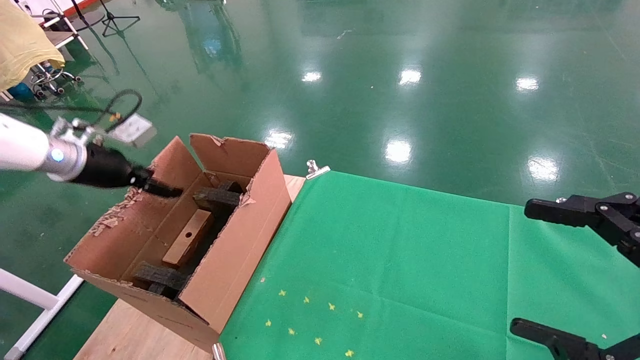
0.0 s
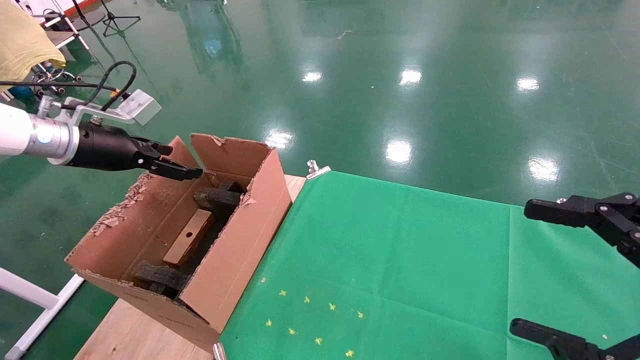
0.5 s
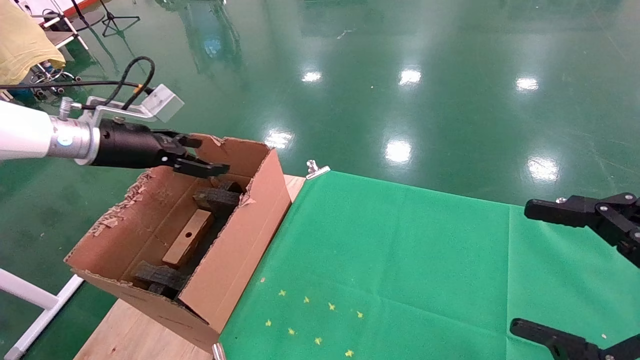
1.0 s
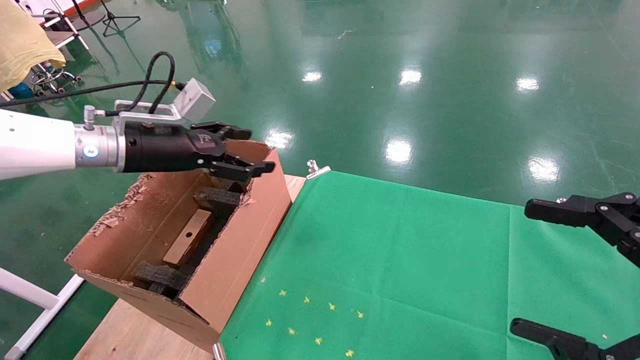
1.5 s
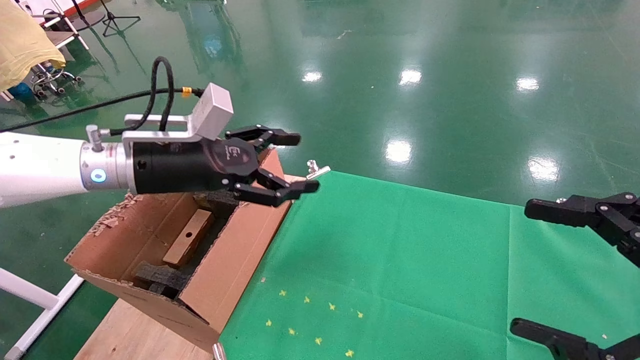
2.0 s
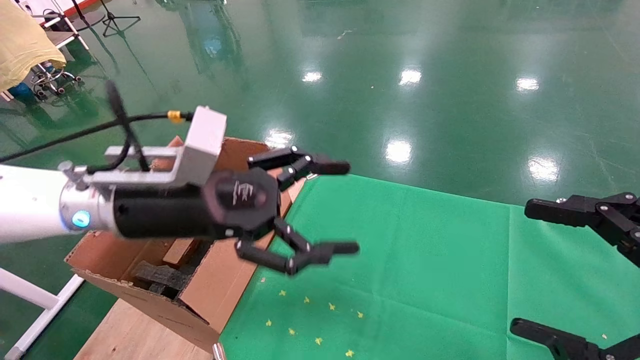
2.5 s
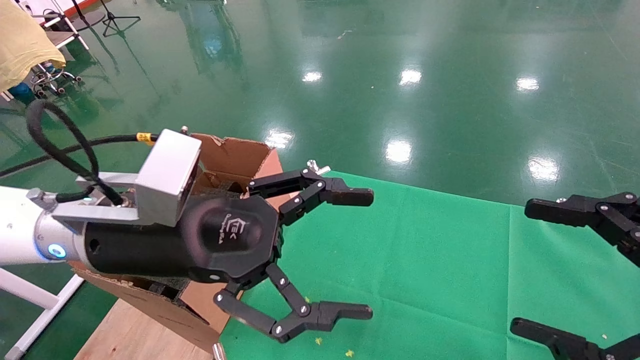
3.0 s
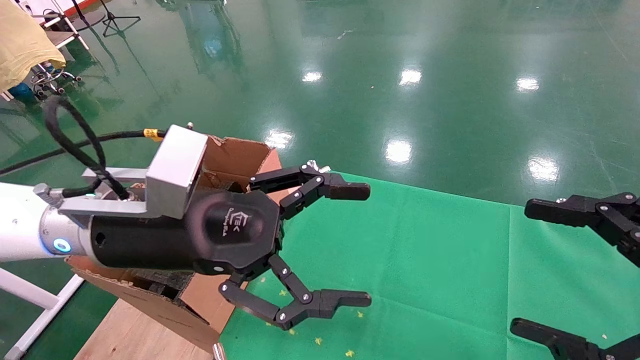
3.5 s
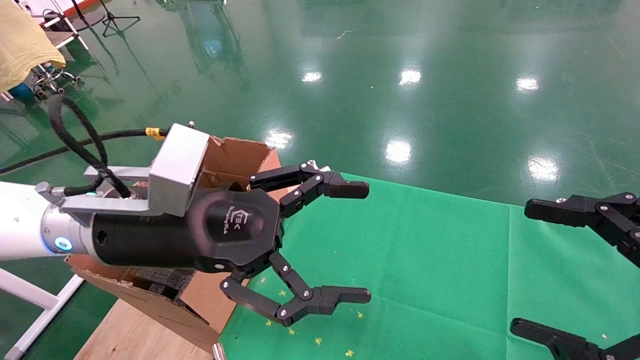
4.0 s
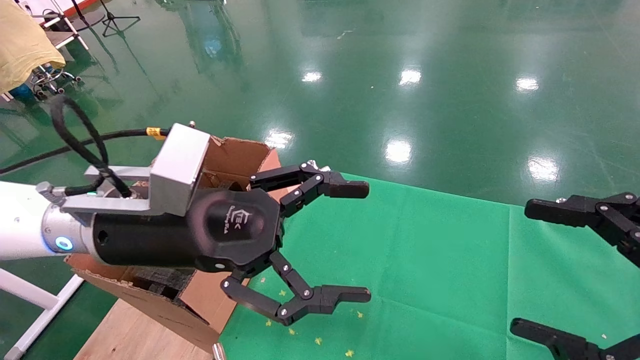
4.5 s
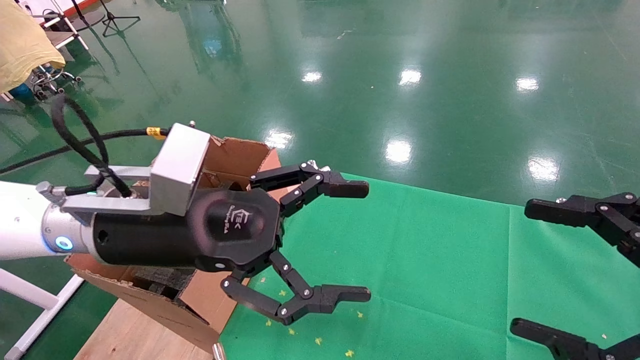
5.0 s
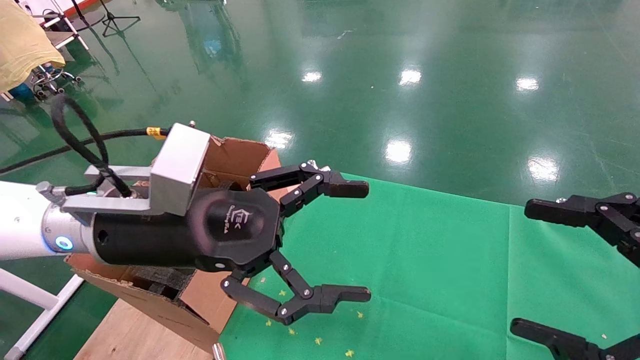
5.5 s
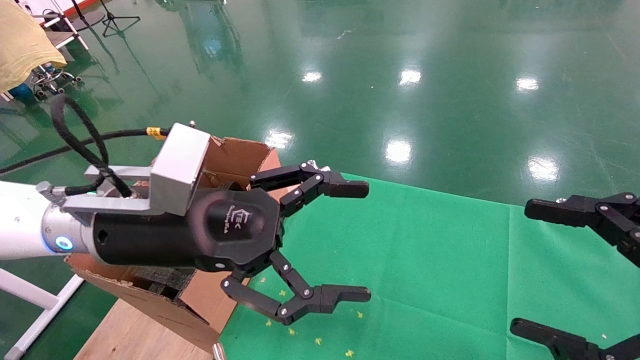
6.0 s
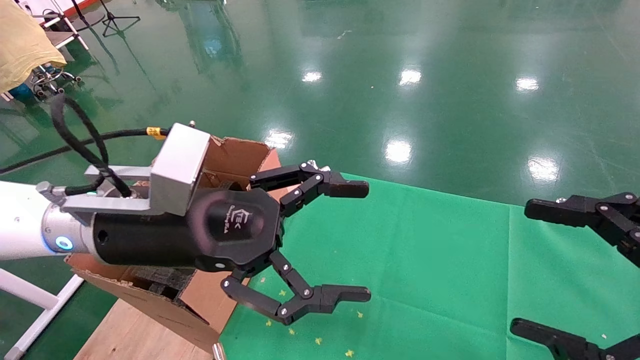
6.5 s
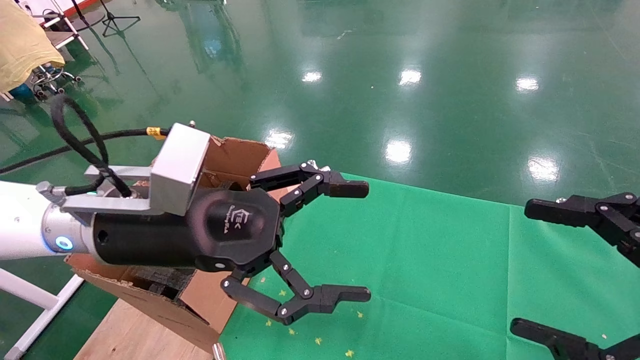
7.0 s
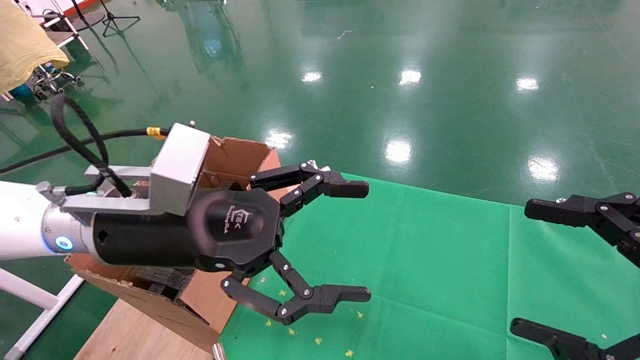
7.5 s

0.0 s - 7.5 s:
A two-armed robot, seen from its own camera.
Task of the whole recording: using a robotic arm to pick up a cardboard box and palace it the carton.
0.0 s - 2.0 s: The left gripper goes approximately 20 cm to the right, and opens its fingers.
2.0 s - 4.0 s: The left gripper is displaced backward and to the right by roughly 10 cm.
4.0 s - 7.5 s: The two grippers keep their place.
